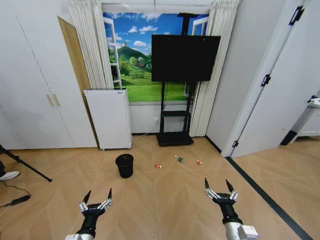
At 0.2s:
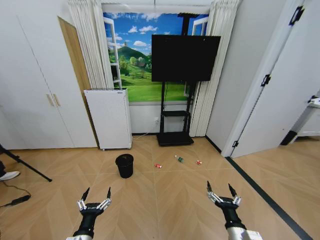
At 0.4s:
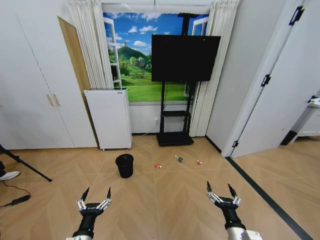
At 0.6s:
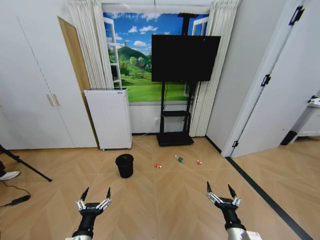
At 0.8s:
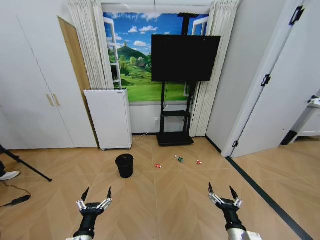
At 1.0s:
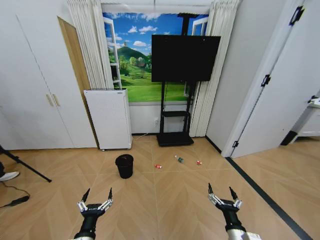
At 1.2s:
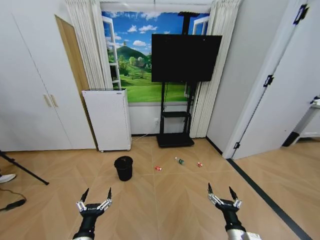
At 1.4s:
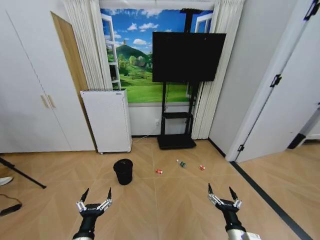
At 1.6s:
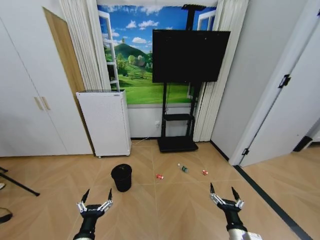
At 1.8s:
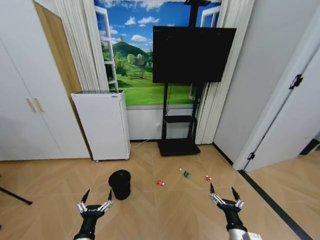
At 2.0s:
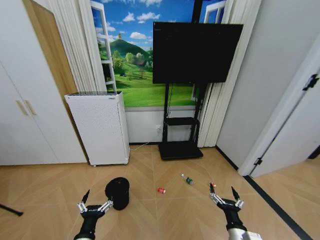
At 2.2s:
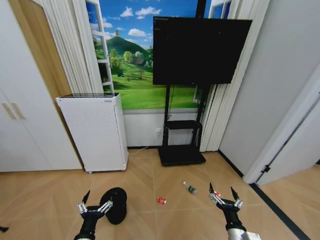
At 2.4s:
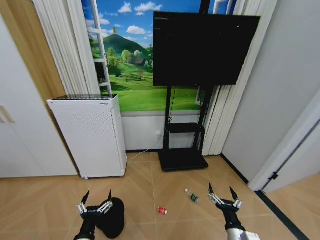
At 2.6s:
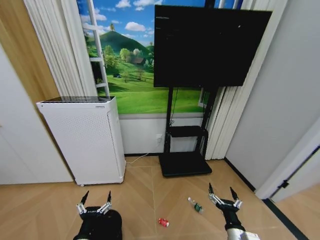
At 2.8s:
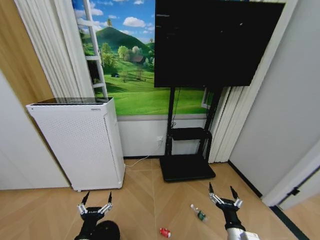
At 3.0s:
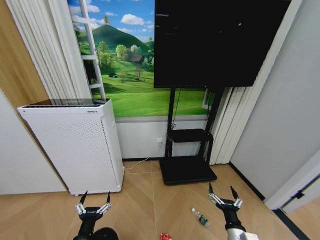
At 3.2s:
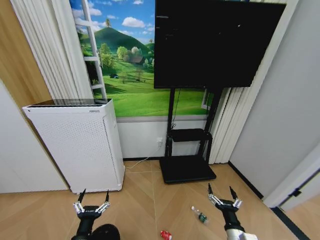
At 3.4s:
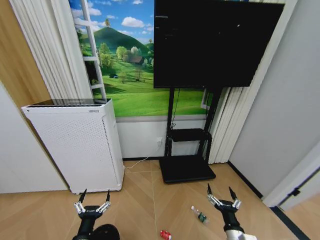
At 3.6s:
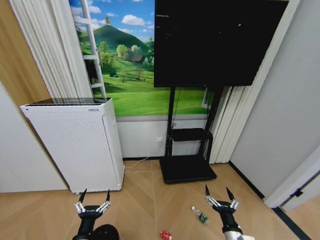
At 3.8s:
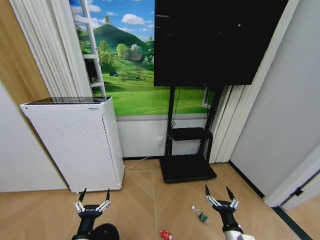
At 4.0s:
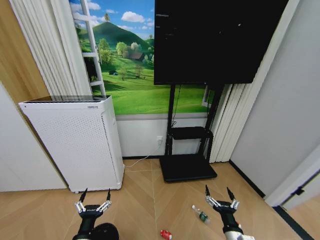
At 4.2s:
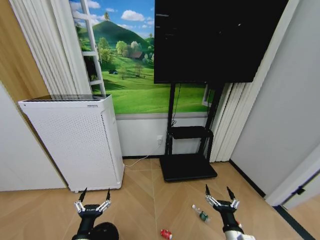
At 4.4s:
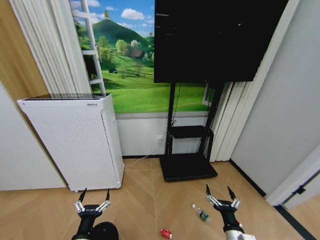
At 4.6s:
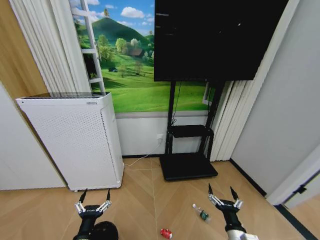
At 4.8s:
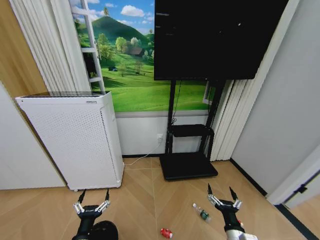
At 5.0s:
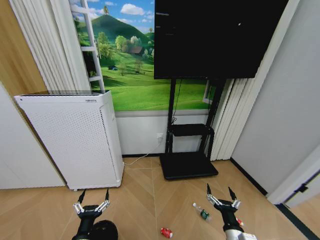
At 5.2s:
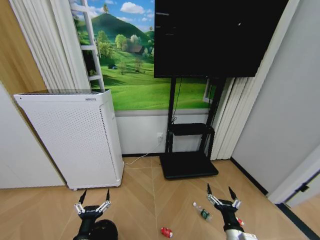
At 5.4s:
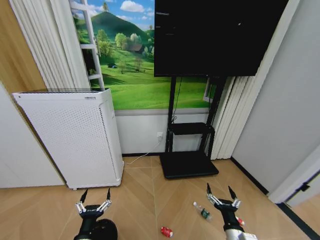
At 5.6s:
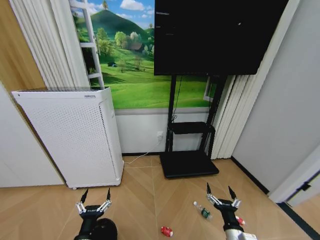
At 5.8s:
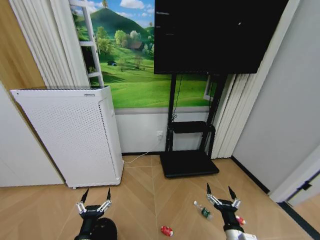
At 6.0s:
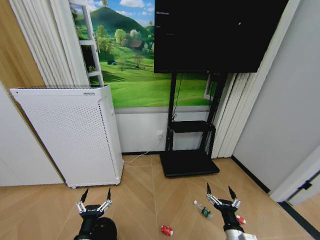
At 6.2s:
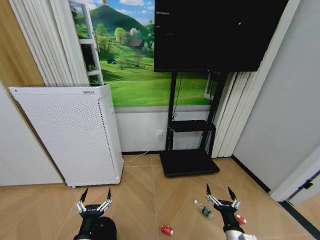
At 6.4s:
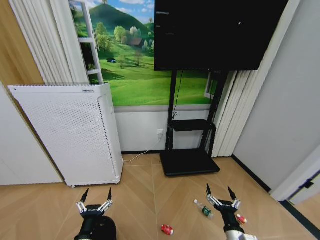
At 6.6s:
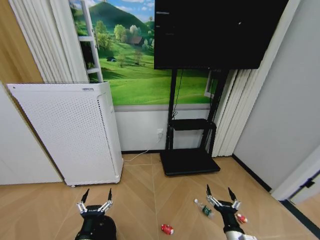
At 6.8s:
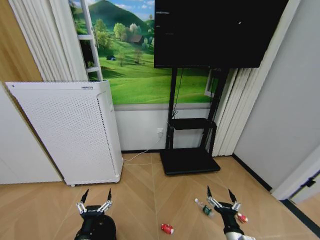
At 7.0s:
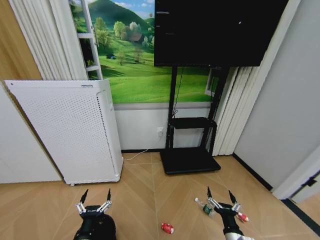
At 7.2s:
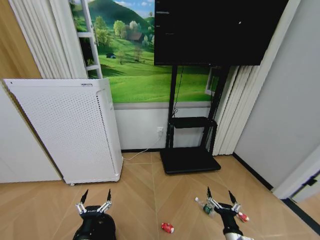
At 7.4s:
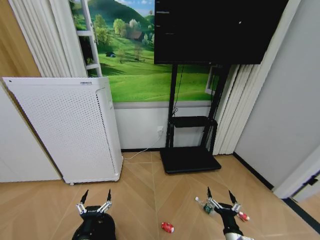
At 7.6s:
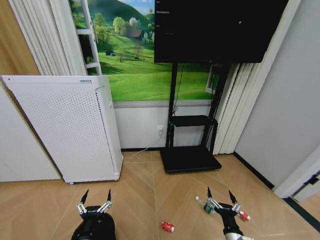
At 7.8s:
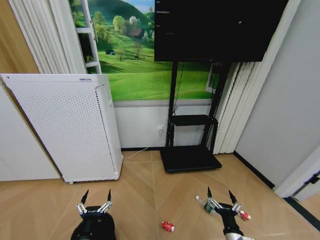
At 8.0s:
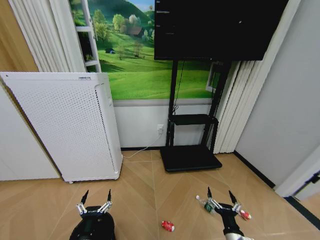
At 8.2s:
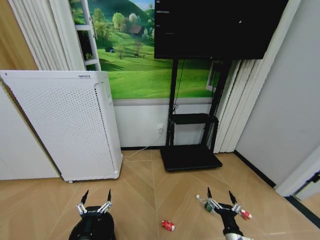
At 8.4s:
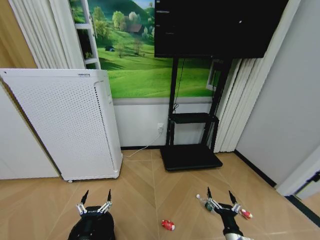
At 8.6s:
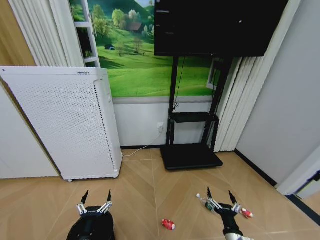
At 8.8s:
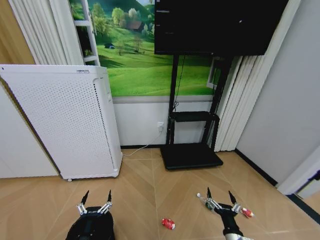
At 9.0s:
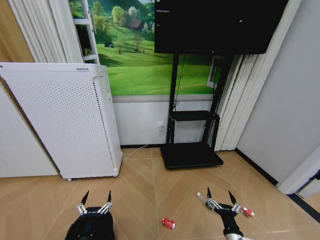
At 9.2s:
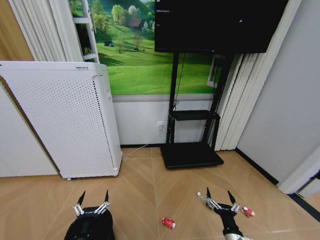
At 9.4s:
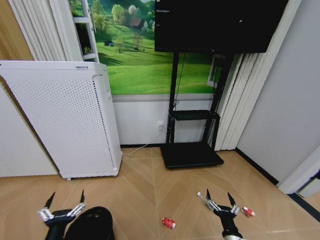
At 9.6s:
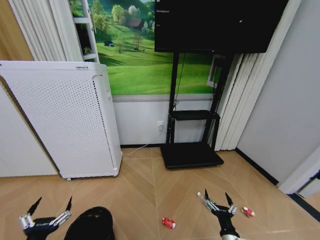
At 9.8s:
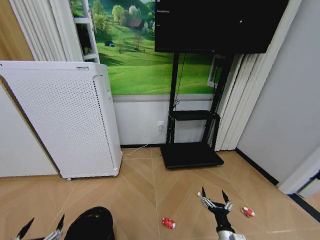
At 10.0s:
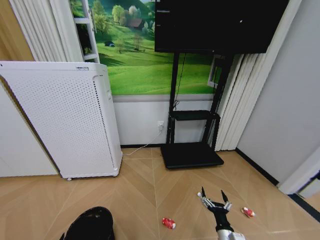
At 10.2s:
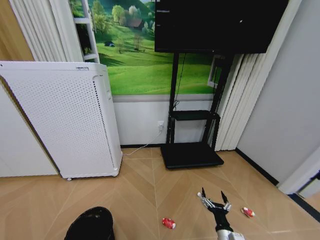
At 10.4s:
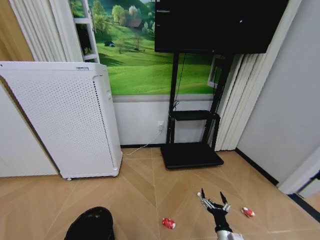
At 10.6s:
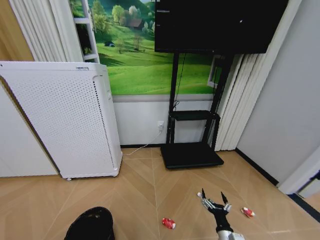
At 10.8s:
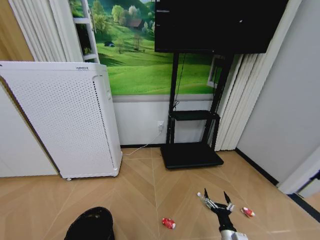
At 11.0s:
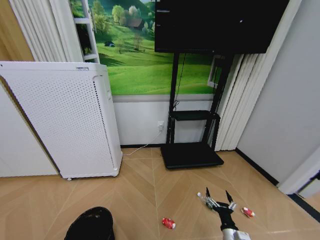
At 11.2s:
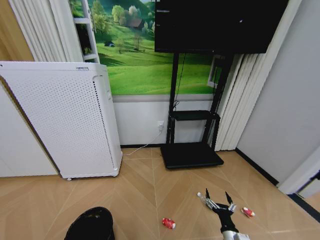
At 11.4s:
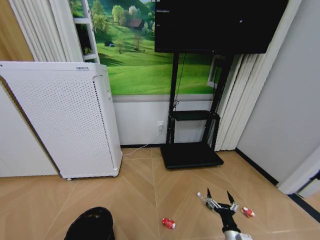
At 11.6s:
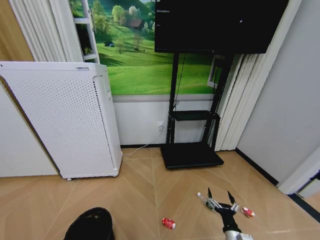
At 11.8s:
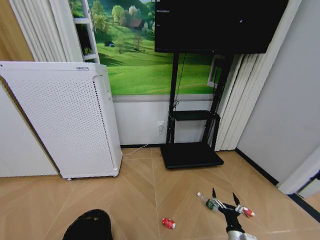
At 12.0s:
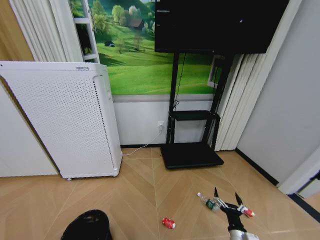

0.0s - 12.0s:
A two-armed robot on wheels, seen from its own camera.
Task of the whole recording: Pick up the trash bin and place the garbage on the floor into it.
3.0s - 4.4s: The grippers move only a little.
4.4s - 6.0s: Both grippers stay put.
6.0s - 7.6s: There are only small adjustments of the grippers.
7.6s - 9.0s: The two grippers keep their place.
9.0s - 10.4s: The left gripper is displaced to the left and backward by approximately 15 cm. Meanwhile the right gripper ends up about 5 cm from where it was.

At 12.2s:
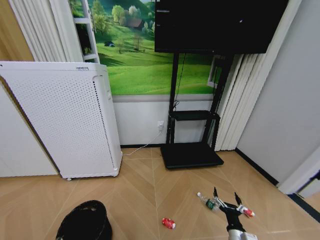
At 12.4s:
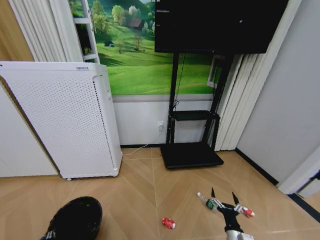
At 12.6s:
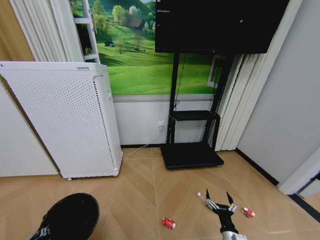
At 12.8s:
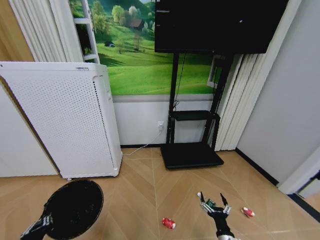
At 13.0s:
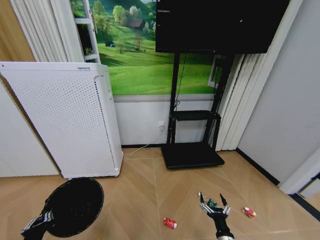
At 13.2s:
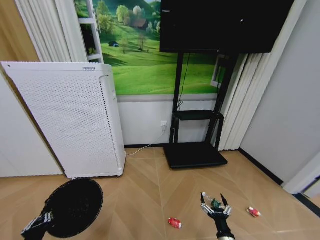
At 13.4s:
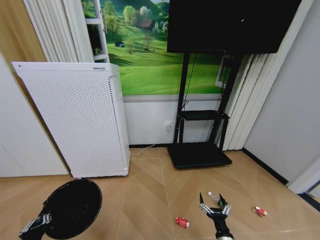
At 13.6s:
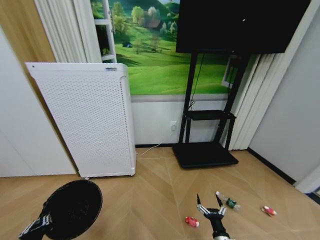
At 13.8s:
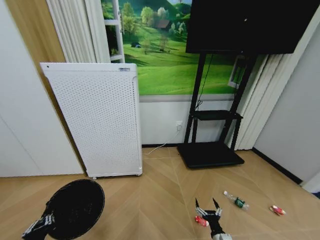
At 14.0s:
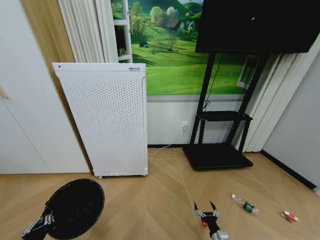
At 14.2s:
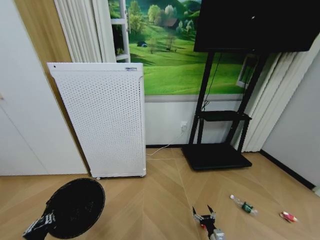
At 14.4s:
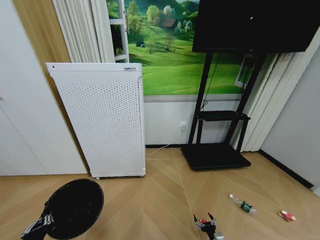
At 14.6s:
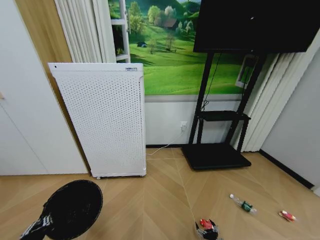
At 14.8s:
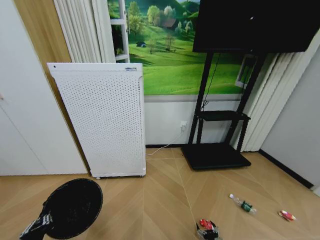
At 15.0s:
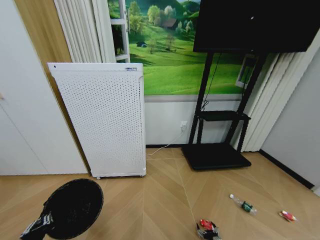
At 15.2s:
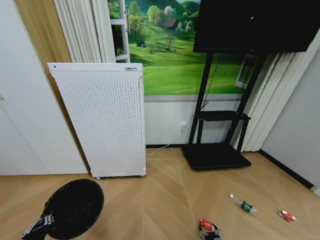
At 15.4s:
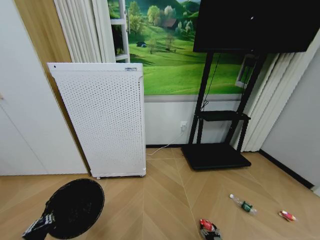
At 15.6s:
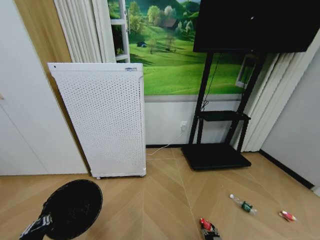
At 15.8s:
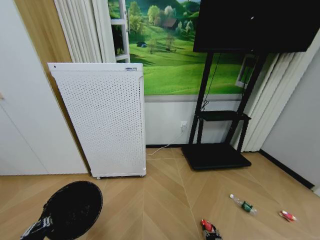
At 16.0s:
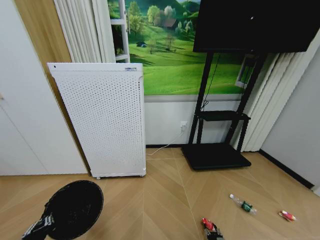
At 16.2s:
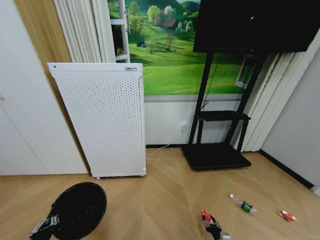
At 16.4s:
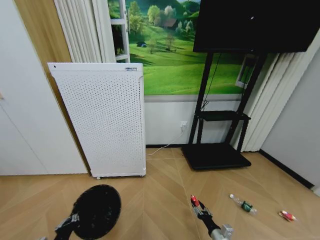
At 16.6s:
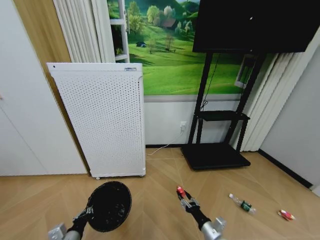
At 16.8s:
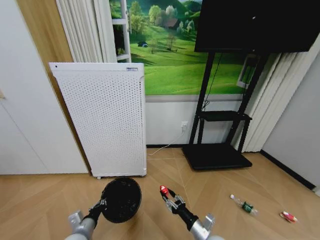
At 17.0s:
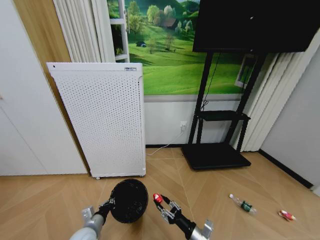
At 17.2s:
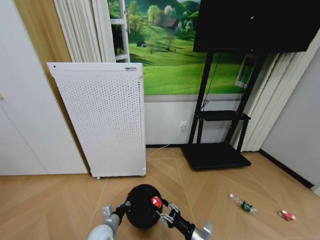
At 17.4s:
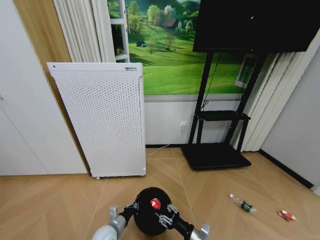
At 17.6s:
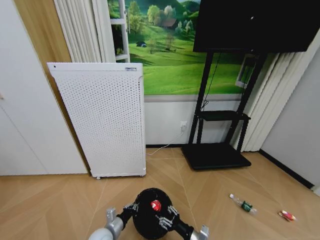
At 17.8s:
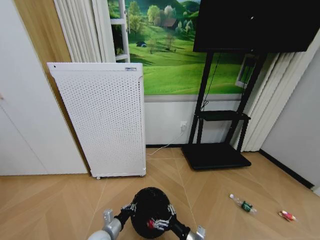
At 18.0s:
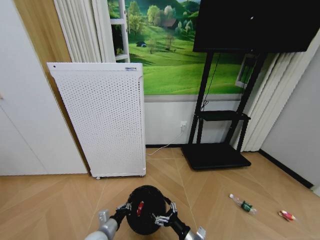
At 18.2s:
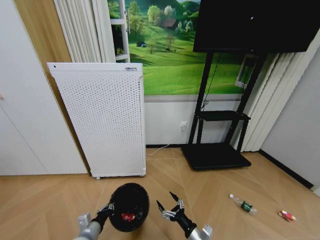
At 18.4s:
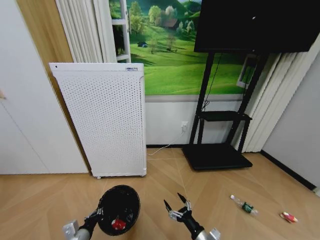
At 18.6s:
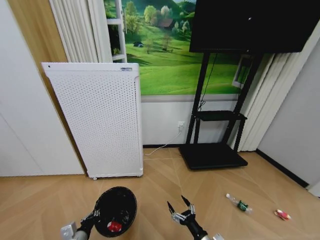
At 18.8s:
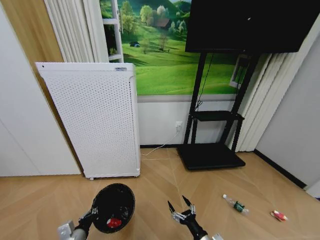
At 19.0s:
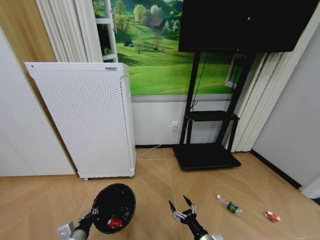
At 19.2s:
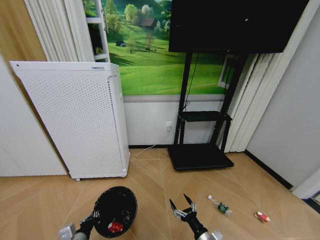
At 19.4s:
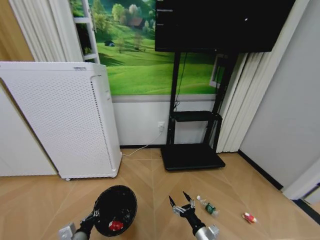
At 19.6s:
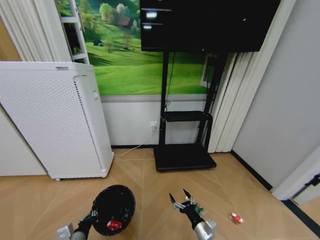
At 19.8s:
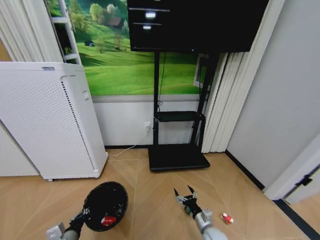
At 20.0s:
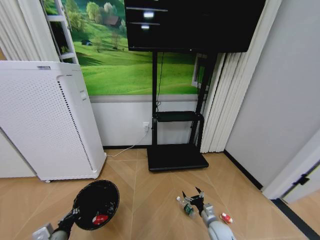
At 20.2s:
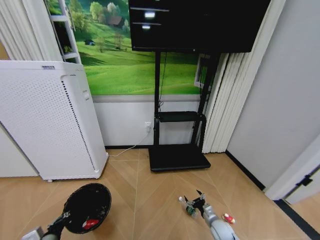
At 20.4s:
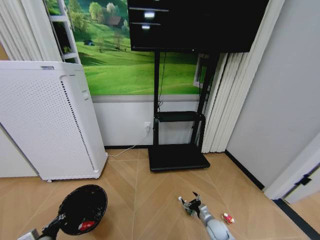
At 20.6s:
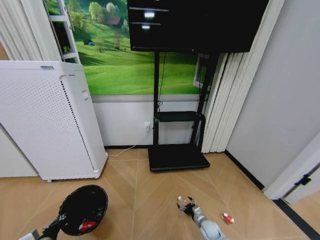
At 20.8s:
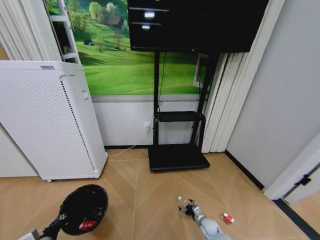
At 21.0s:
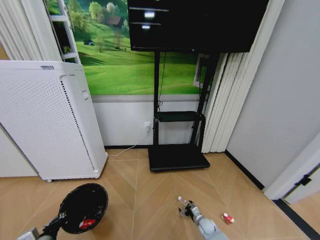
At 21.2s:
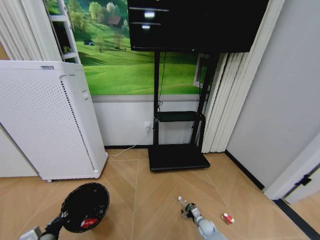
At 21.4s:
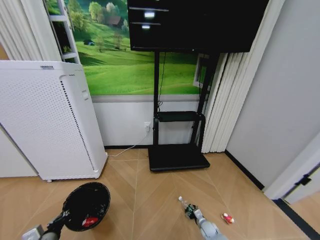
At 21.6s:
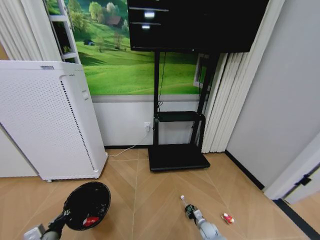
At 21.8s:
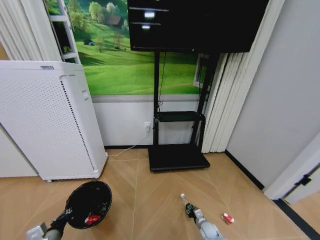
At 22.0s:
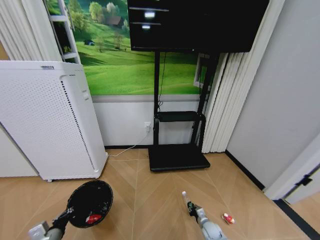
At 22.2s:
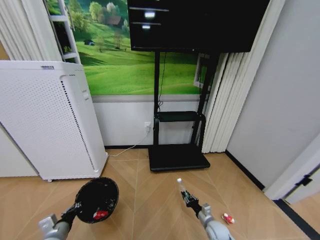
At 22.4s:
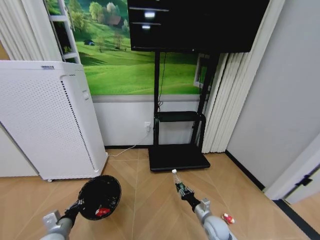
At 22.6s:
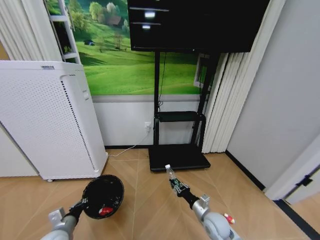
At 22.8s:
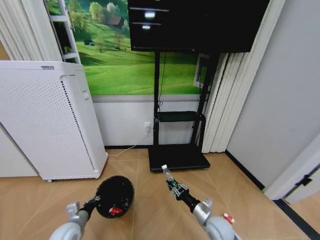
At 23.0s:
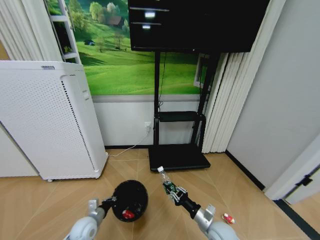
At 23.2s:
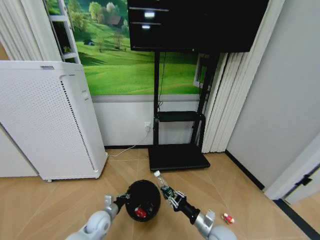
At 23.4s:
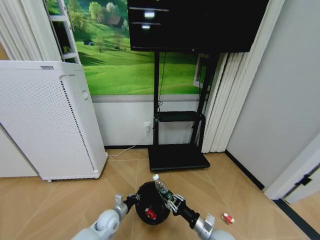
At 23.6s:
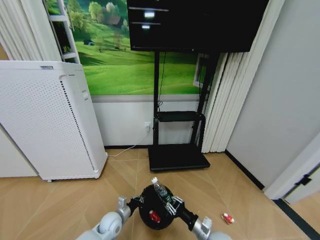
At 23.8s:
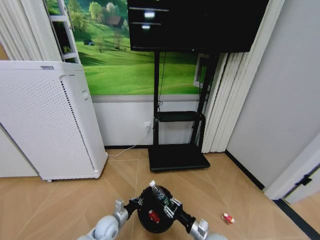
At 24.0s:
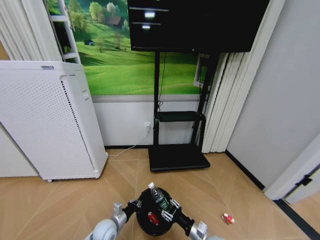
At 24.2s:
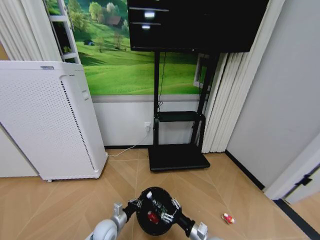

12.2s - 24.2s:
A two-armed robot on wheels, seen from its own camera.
Task of the whole recording: Pick up the trash bin and place the garbage on the floor into it.
12.2s - 13.8s: The left gripper travels upward and to the right by some 10 cm. Meanwhile the right gripper travels downward by approximately 5 cm.
13.8s - 15.2s: The right gripper is displaced downward by roughly 15 cm.
15.2s - 16.6s: The left gripper is displaced forward by approximately 5 cm, while the right gripper travels upward by about 20 cm, and closes.
16.6s - 18.2s: The right gripper goes about 5 cm to the left, and opens its fingers.
18.2s - 19.8s: The right gripper travels forward by approximately 5 cm. Meanwhile the left gripper goes roughly 5 cm to the left.
19.8s - 21.2s: The left gripper shifts roughly 5 cm to the left. Meanwhile the right gripper travels downward and forward by approximately 15 cm.
21.2s - 22.6s: The left gripper is displaced forward by roughly 5 cm, while the right gripper travels upward by about 20 cm, and closes up.
22.6s - 24.2s: The right gripper heads backward, covering approximately 10 cm, and opens, while the left gripper heads to the right and downward, covering some 15 cm.
